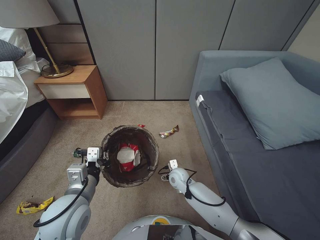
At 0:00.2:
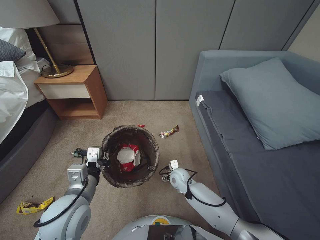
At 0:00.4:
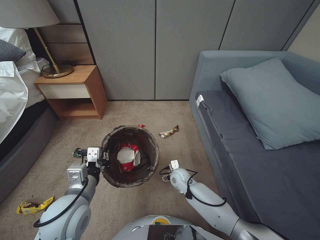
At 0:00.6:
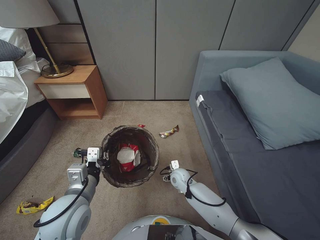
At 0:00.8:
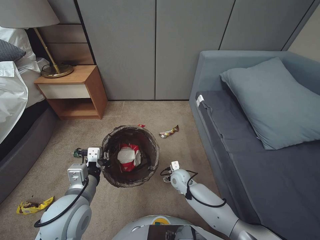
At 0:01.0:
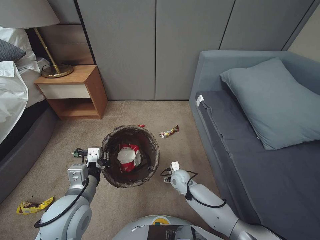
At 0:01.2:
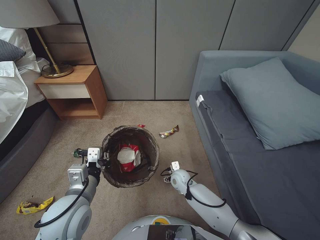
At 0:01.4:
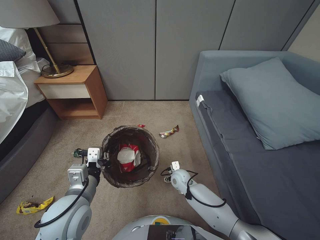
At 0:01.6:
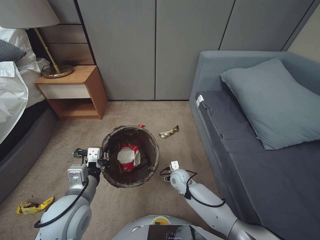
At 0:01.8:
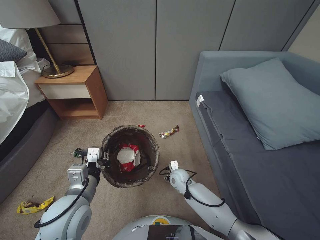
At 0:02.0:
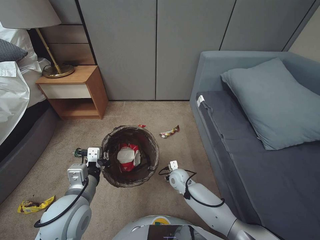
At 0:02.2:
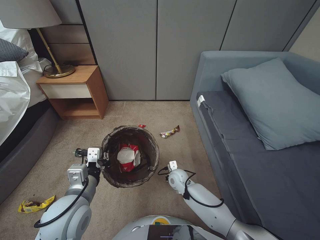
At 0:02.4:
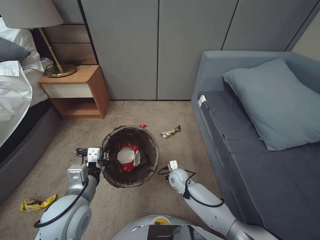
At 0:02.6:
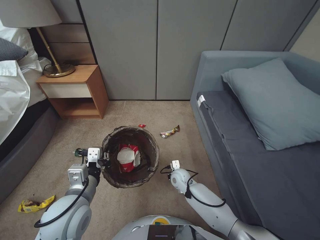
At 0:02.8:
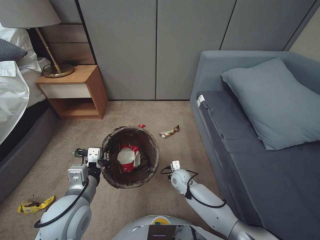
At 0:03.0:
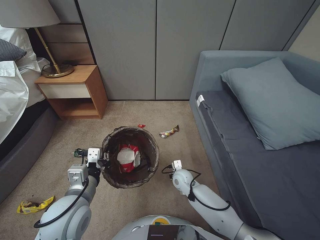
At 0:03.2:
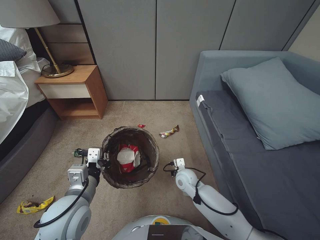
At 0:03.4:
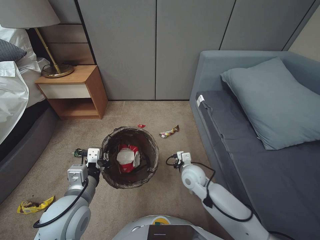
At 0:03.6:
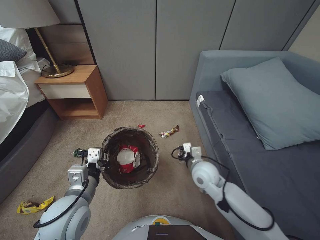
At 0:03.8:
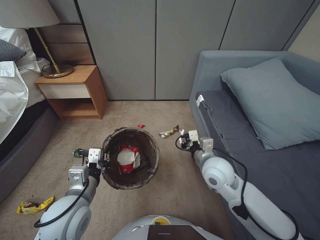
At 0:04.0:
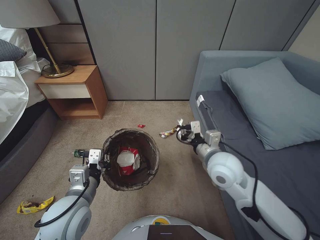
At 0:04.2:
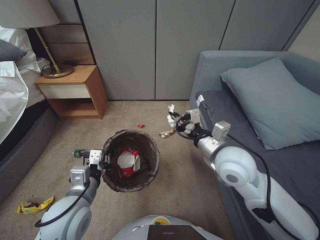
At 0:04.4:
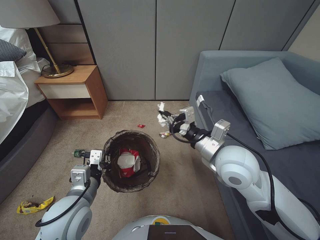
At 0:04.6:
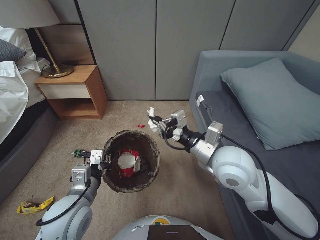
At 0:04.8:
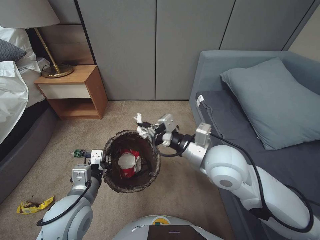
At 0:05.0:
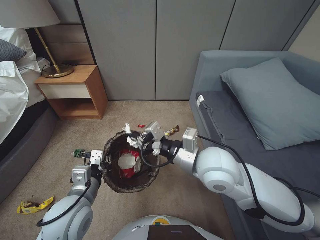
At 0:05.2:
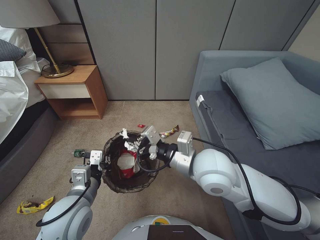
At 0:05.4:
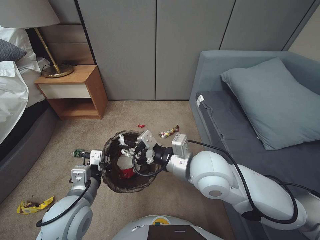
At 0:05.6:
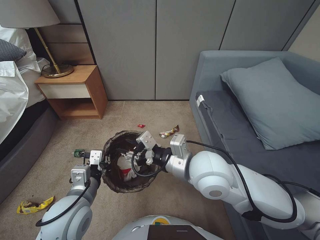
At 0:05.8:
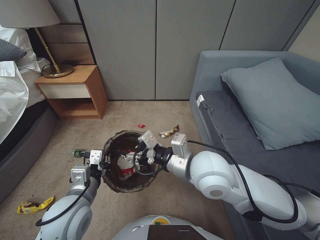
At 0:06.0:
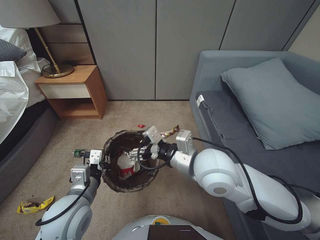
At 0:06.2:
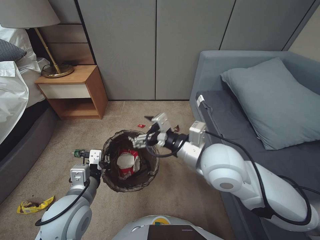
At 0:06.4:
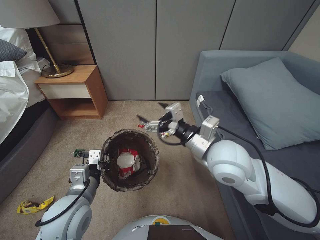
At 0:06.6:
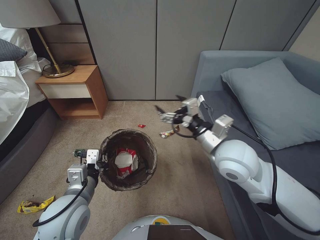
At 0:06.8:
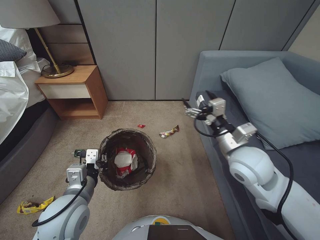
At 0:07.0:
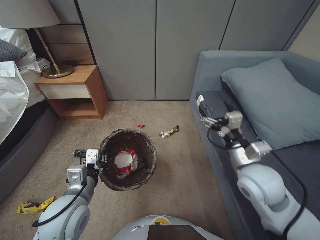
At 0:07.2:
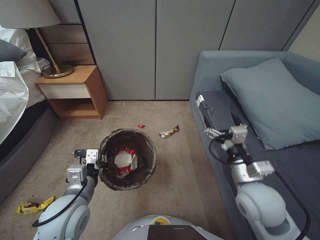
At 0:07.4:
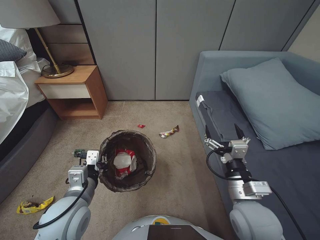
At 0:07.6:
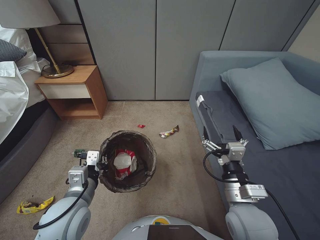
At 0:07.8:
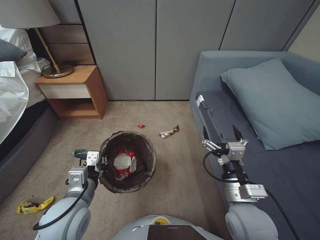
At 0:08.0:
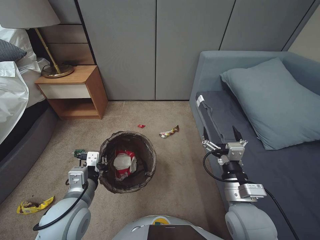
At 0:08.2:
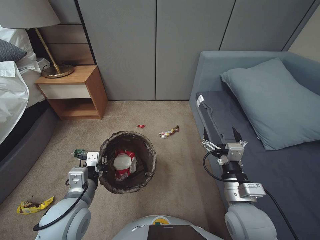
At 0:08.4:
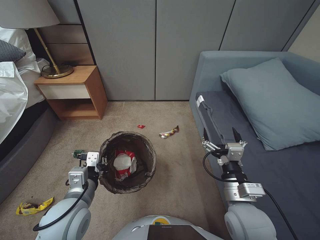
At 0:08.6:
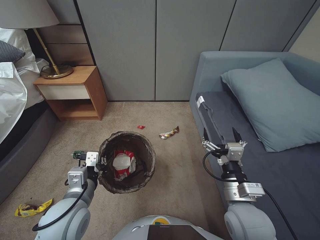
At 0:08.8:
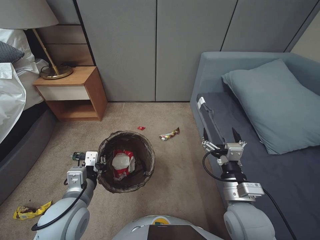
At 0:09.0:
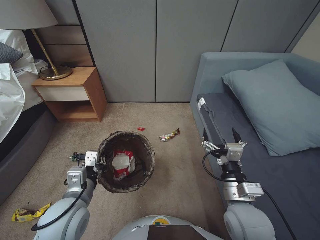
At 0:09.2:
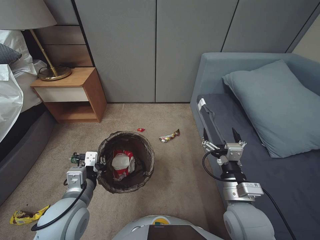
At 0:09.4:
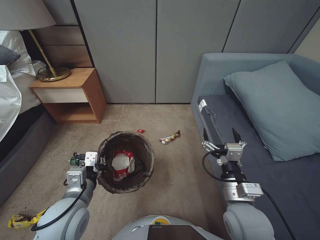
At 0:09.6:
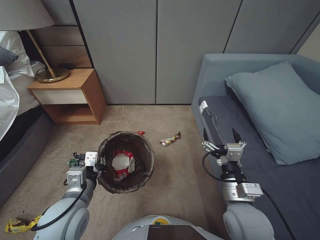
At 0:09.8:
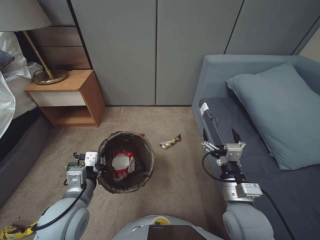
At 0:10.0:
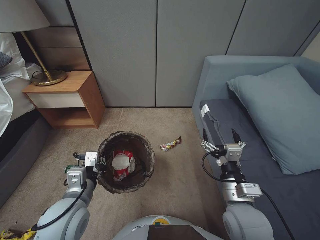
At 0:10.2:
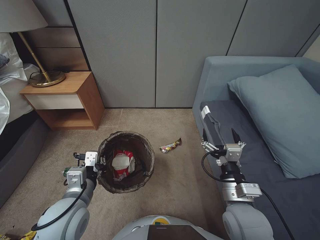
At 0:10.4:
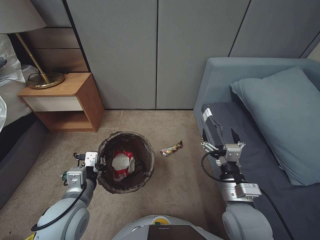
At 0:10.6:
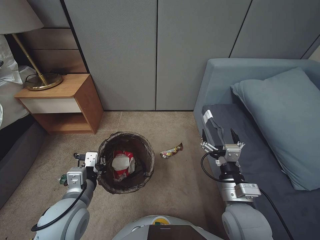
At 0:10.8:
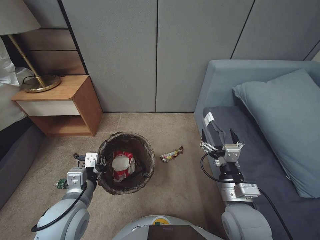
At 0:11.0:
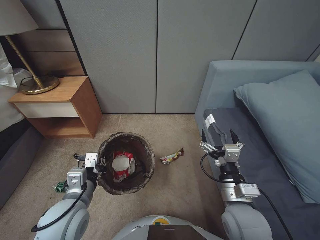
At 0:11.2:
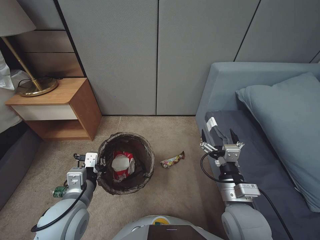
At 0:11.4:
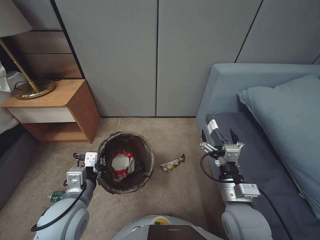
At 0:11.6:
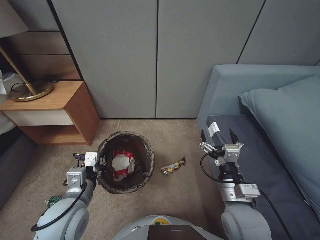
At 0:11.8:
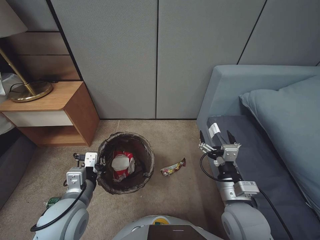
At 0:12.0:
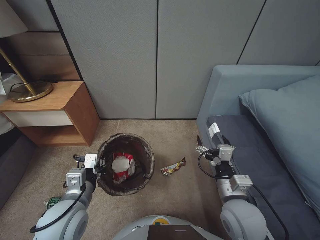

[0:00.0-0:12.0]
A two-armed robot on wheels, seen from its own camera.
Task of the whole recording: Pick up the trash bin, then pick up the garbage from the floor and place it into the trash bin.
0:00.0 to 0:01.6: The grippers make only small movements.
0:01.6 to 0:03.0: The right gripper closes its fingers.
0:03.0 to 0:04.4: The right gripper moves upward, roughly 35 cm.
0:04.4 to 0:06.0: The right gripper shifts roughly 5 cm to the left, and opens its fingers.
0:06.0 to 0:07.6: The right gripper is displaced to the right, downward and backward by some 20 cm.
0:07.6 to 0:09.0: Neither gripper changes place.
0:09.0 to 0:10.4: Neither gripper changes place.

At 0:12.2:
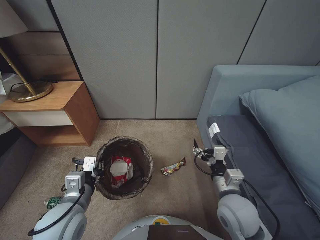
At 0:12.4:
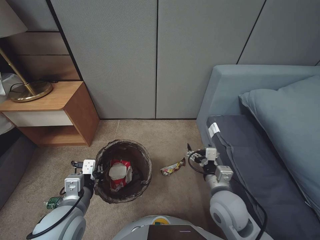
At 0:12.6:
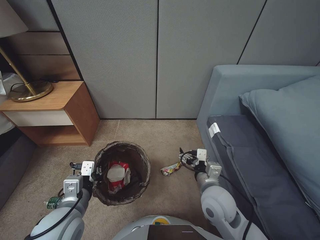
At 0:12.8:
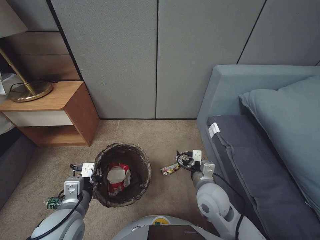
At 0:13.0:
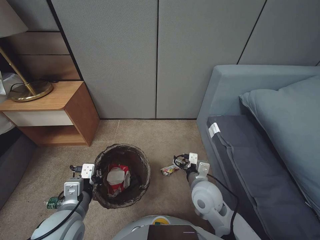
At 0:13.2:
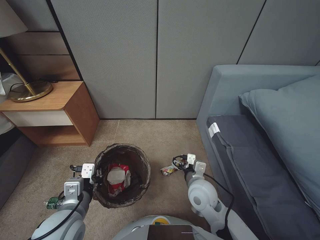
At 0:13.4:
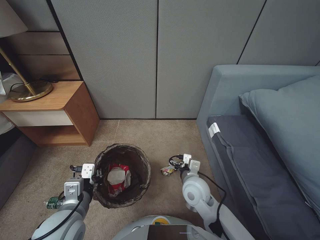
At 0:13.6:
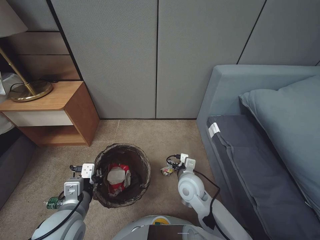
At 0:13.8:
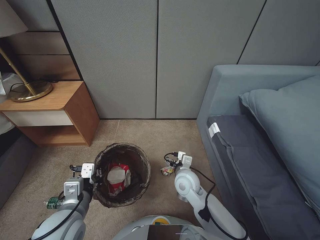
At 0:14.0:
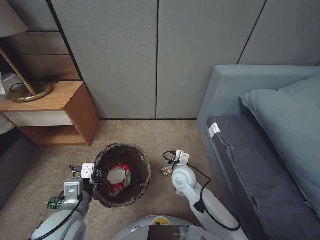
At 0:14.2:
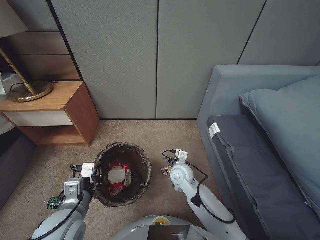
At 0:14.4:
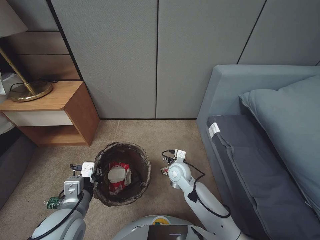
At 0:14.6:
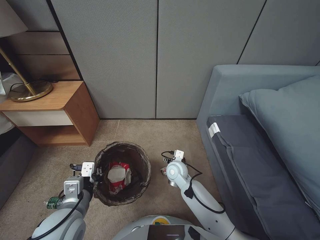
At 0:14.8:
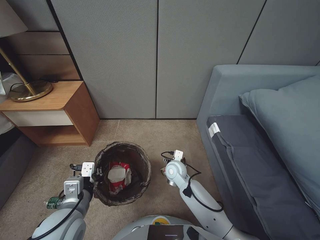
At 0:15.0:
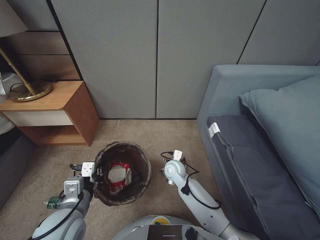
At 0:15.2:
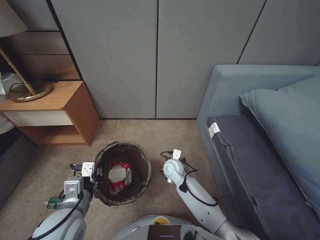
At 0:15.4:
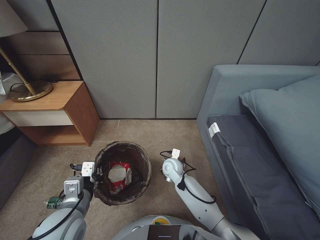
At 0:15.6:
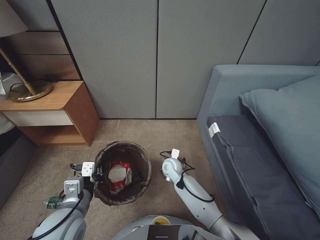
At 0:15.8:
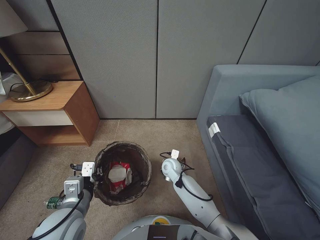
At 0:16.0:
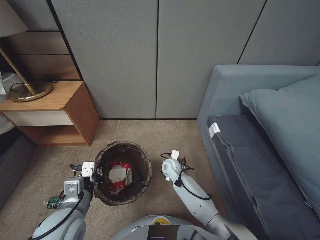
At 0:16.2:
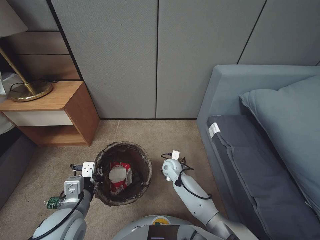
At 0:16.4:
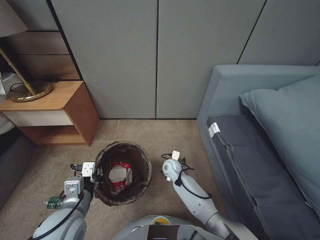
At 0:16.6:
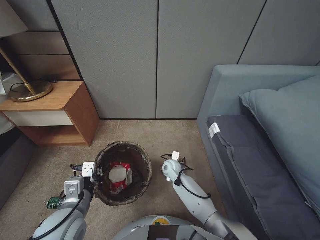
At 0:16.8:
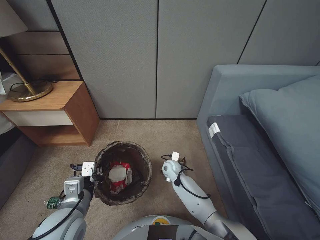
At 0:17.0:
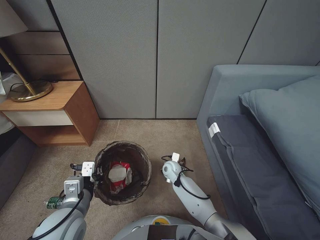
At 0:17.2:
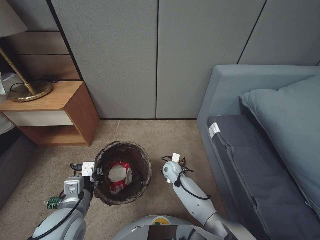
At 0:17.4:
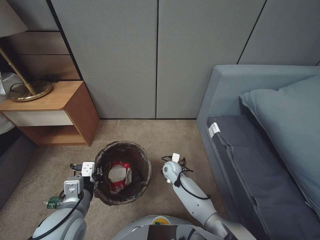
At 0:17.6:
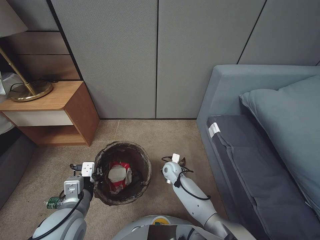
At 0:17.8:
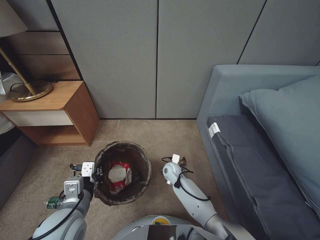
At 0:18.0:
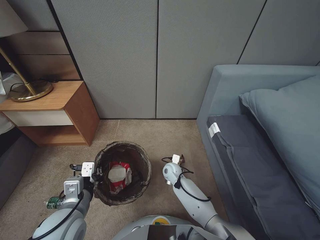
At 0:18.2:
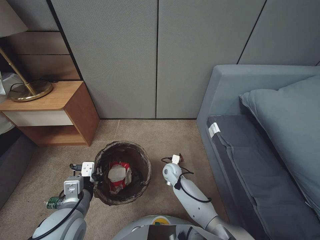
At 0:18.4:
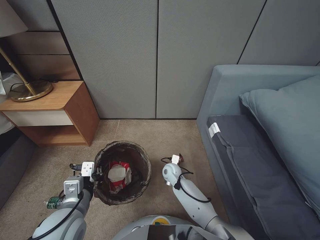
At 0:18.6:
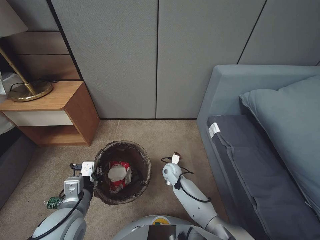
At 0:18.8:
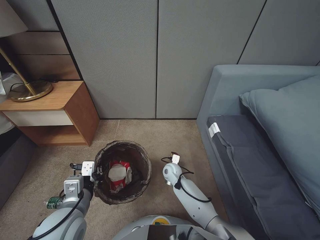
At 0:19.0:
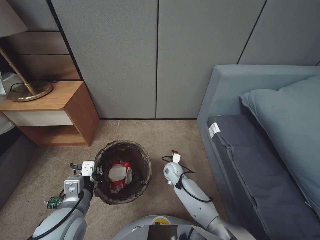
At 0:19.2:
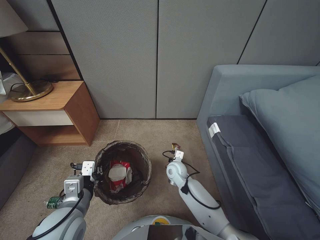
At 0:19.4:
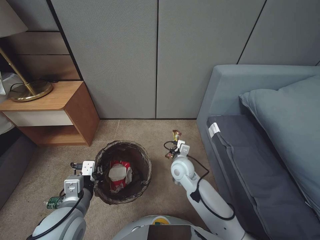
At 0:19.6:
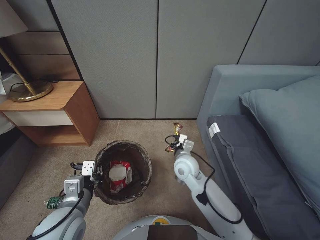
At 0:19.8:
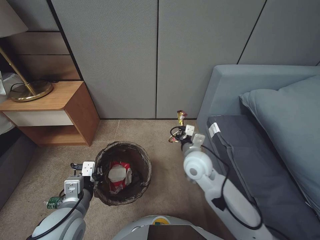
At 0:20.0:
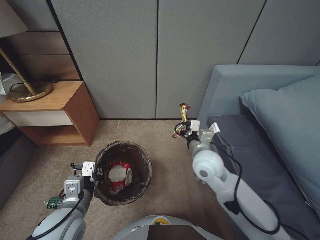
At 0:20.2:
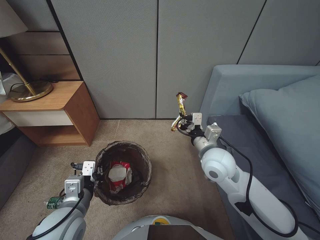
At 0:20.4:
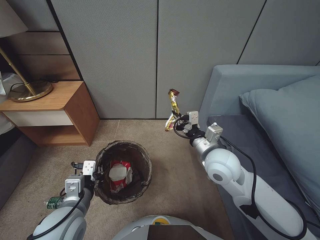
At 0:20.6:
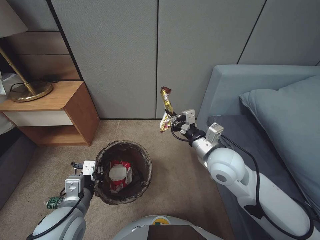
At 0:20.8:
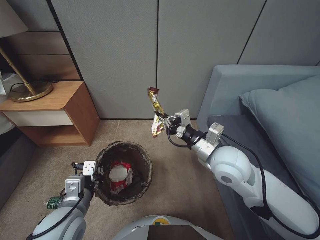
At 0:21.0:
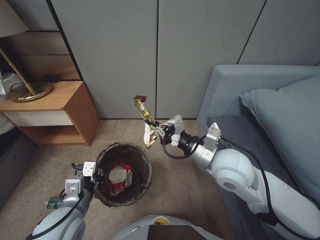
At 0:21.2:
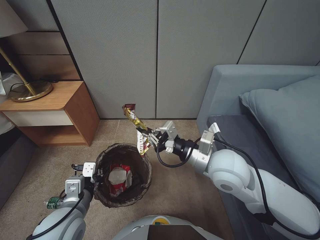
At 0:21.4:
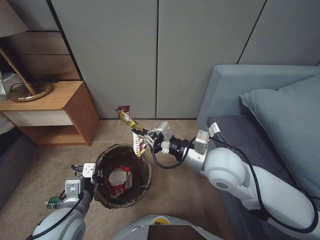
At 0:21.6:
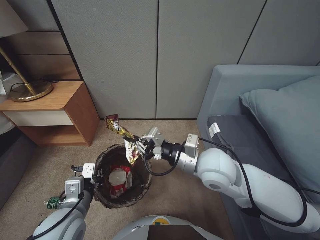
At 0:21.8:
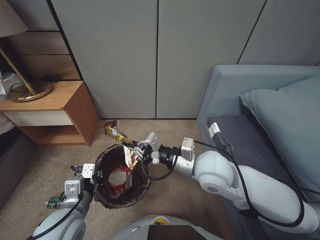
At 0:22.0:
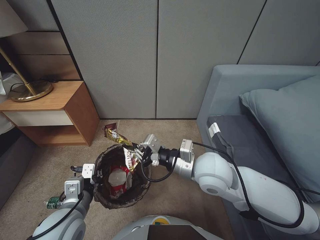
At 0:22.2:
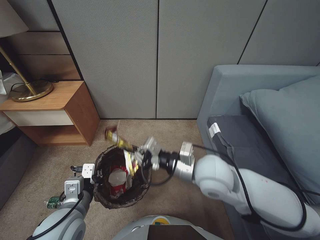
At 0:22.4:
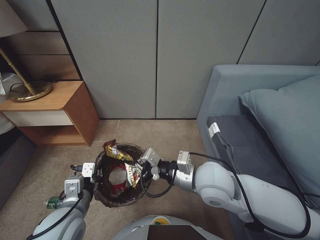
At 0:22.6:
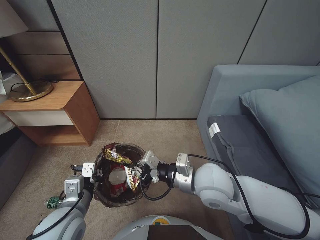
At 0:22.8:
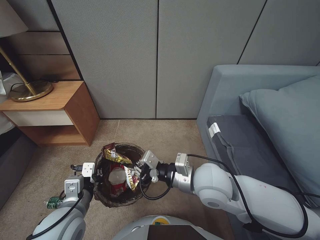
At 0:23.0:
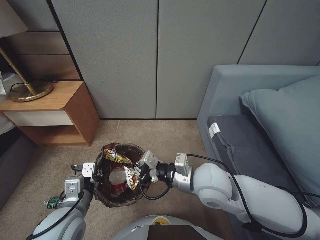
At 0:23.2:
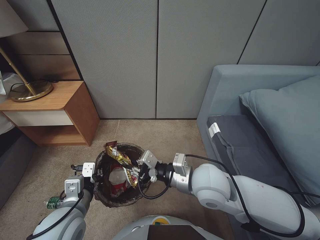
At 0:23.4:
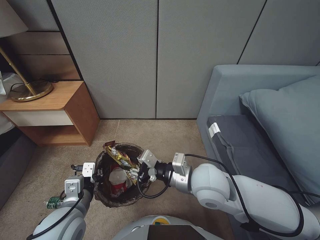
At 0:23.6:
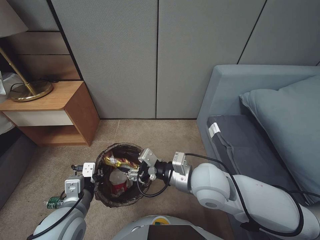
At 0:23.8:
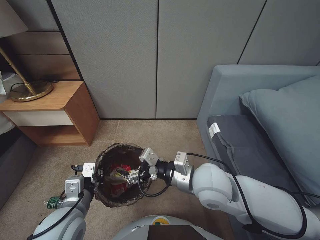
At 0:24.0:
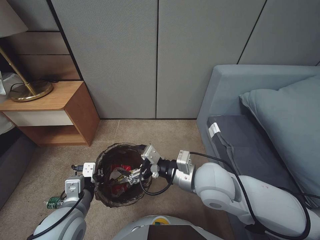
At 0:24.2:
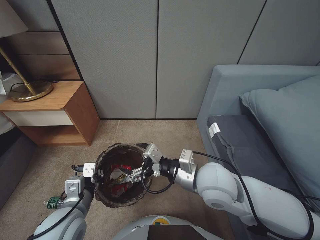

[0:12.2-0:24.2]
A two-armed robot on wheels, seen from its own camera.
Task of the whole recording: Pick up the trash bin, then pick up the garbage from the floor and place it into the trash bin.
0:12.2 to 0:13.8: The right gripper shifts some 15 cm forward, to the left and downward.
0:13.8 to 0:15.2: The right gripper is displaced forward and downward by roughly 10 cm.
0:15.2 to 0:16.6: The right gripper heads downward, covering about 5 cm.
0:16.6 to 0:18.2: The right gripper closes its fingers.
0:18.2 to 0:19.8: The right gripper heads upward, covering approximately 20 cm, and closes.
0:19.8 to 0:21.2: The right gripper heads upward, backward and to the right, covering approximately 15 cm.
0:21.2 to 0:22.6: The right gripper ends up roughly 5 cm from where it was.
0:22.6 to 0:24.2: The right gripper opens its fingers.
